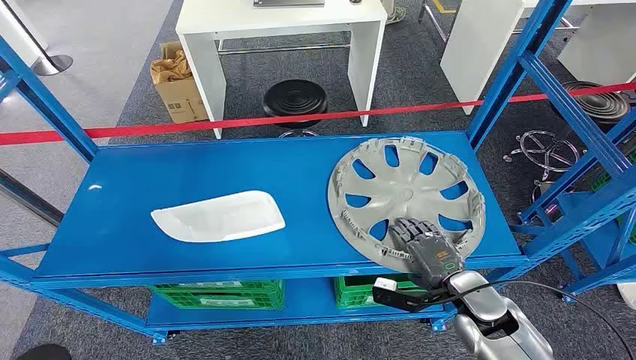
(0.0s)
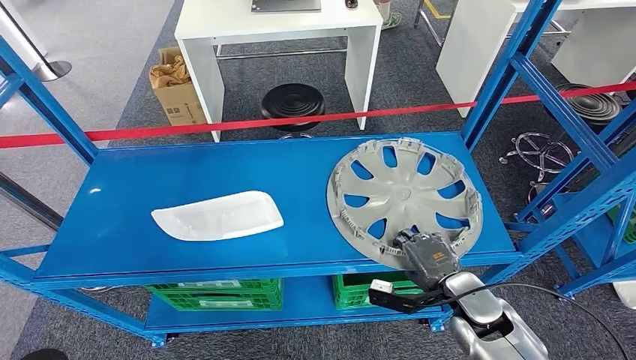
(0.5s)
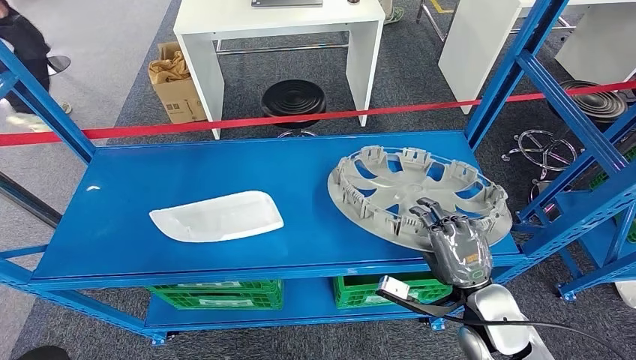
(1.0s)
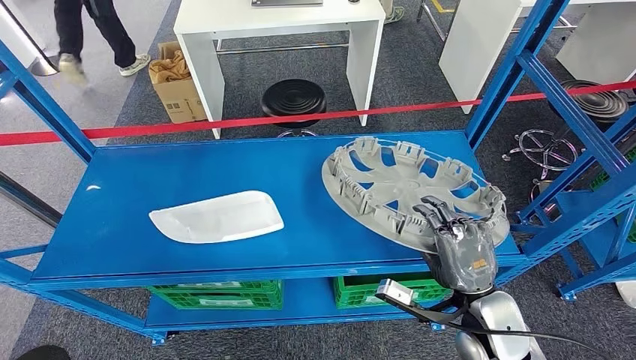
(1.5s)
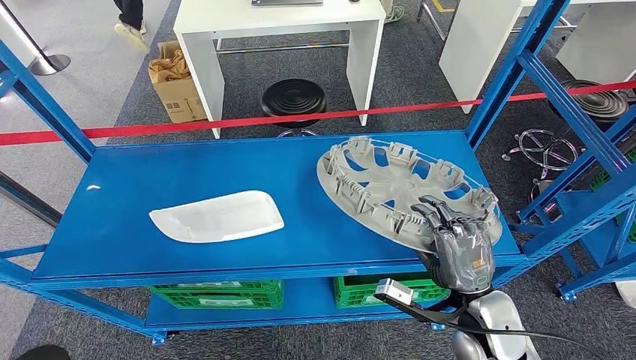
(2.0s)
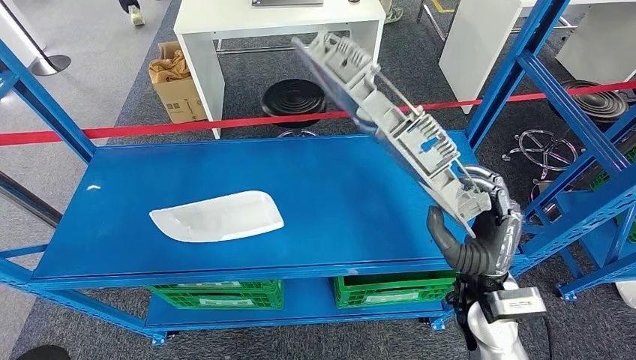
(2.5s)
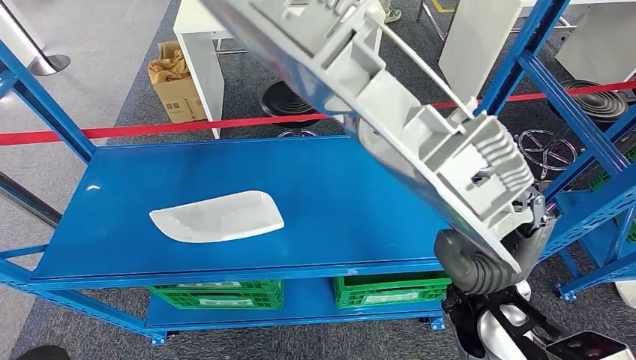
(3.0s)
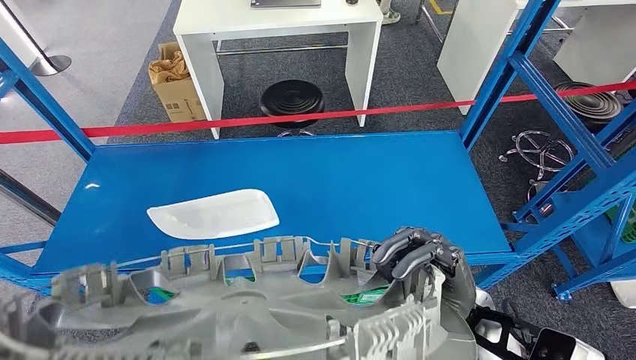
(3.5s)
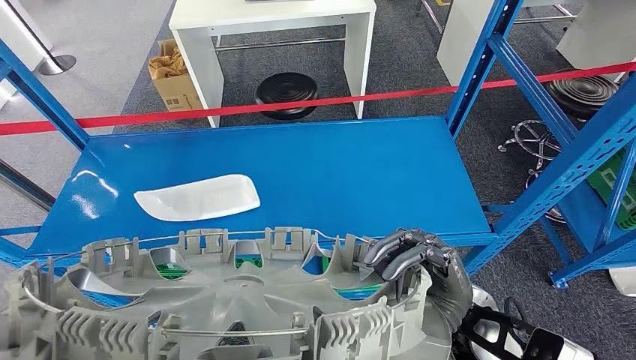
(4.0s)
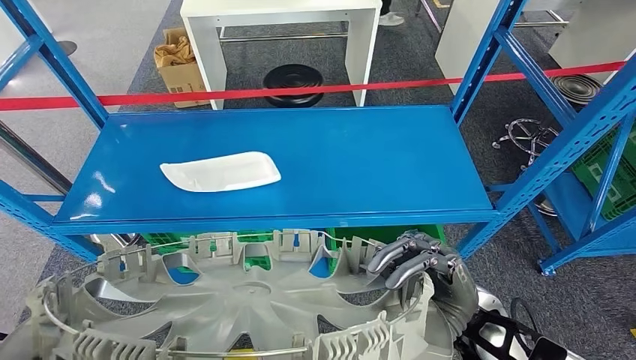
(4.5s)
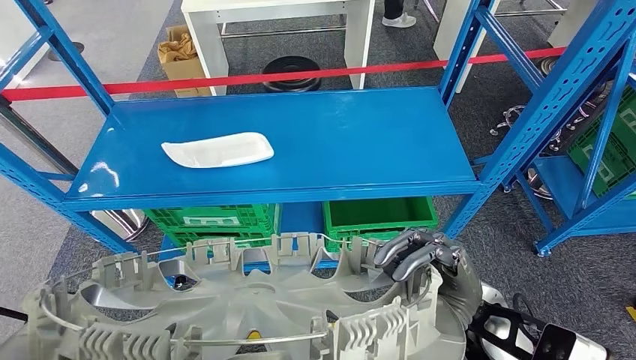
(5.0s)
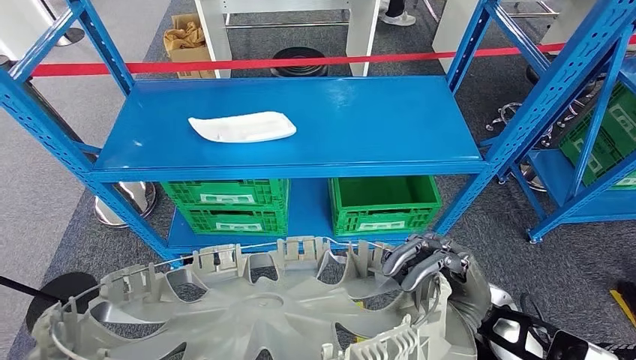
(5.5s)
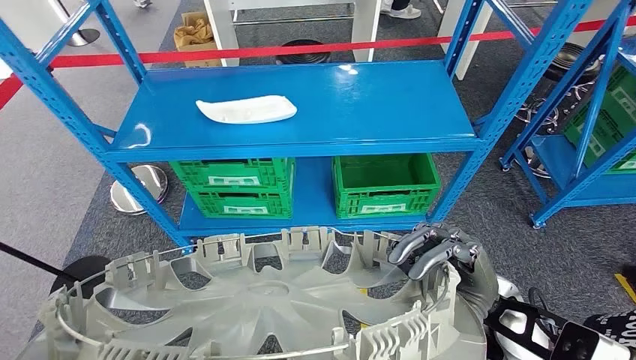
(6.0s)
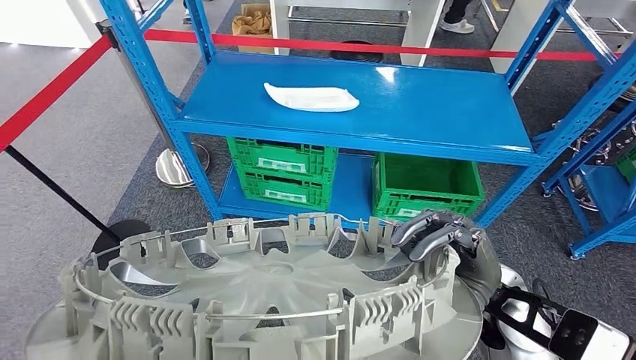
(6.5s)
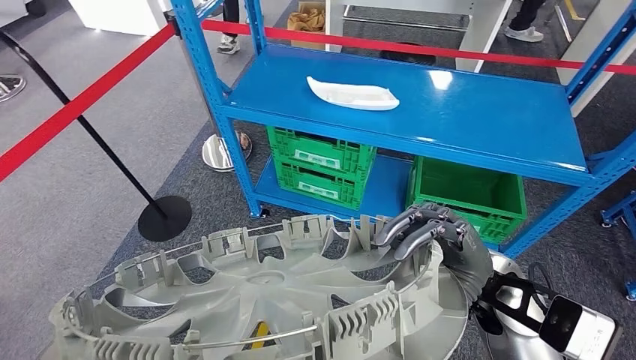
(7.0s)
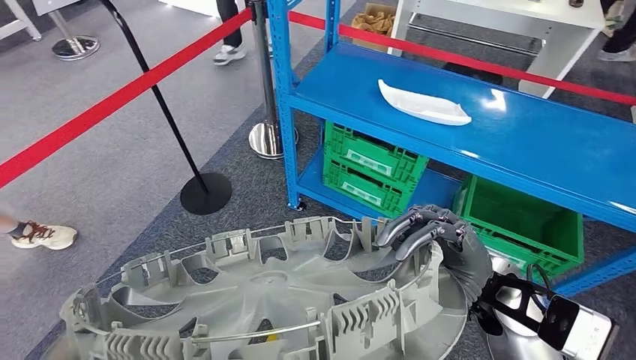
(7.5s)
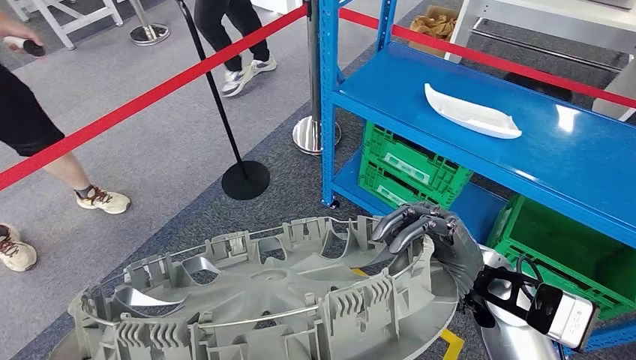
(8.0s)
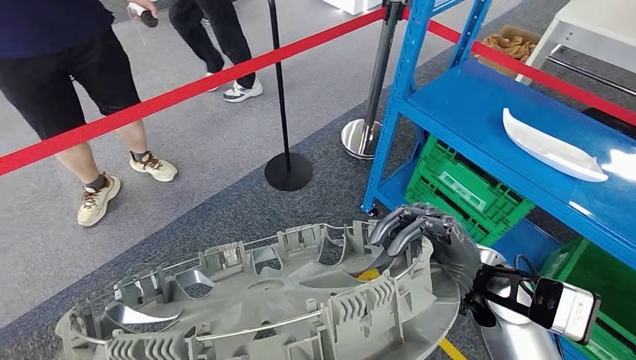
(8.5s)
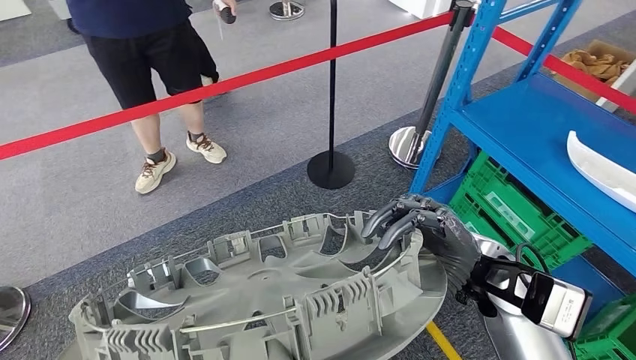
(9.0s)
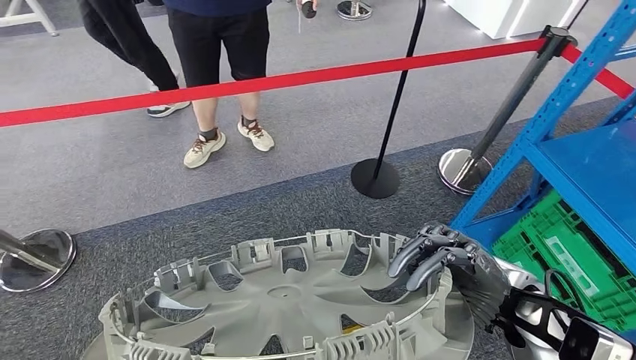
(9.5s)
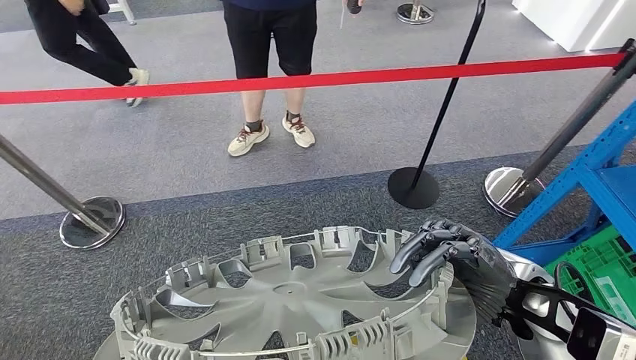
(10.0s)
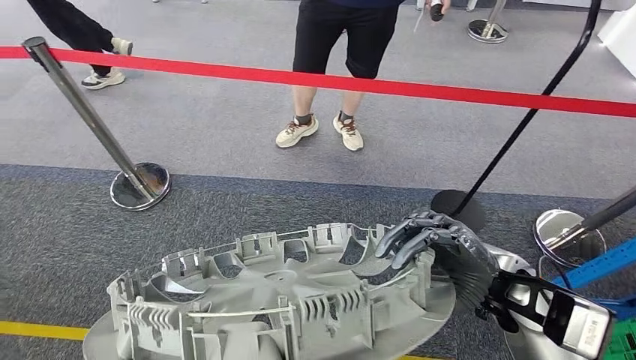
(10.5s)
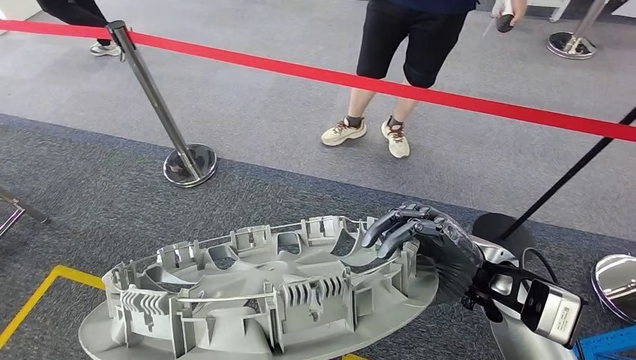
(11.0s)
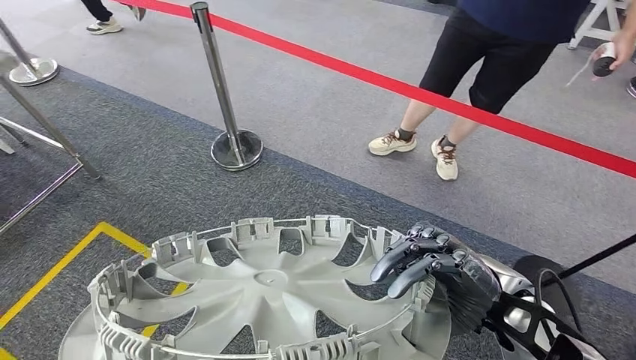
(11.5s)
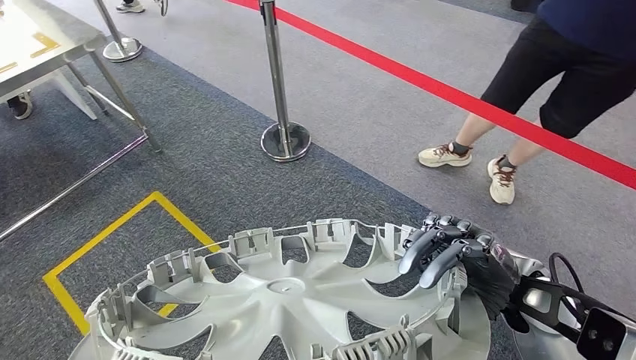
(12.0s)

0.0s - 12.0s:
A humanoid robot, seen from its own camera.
Step, 0.0s - 2.5s: Pick up the small component from the shelf.

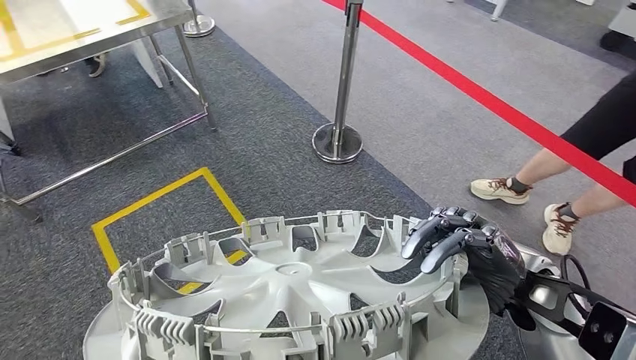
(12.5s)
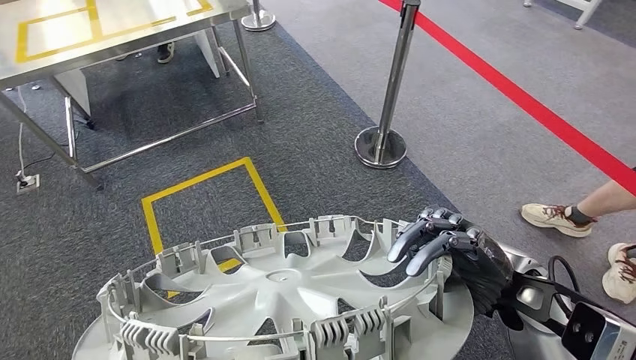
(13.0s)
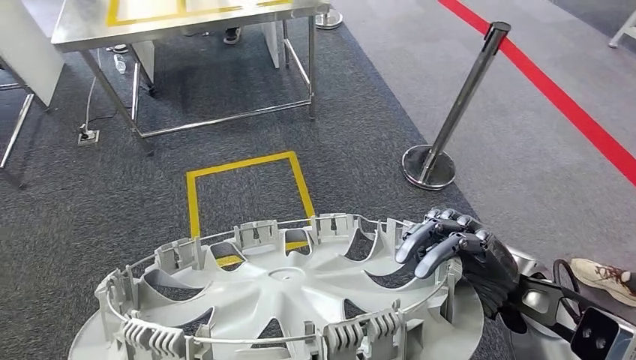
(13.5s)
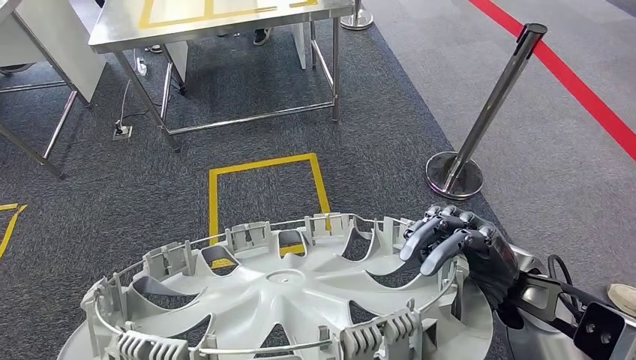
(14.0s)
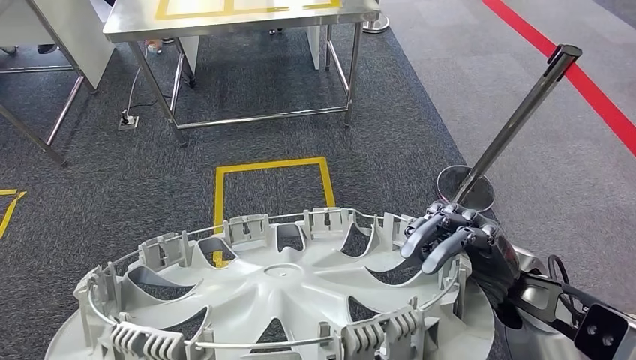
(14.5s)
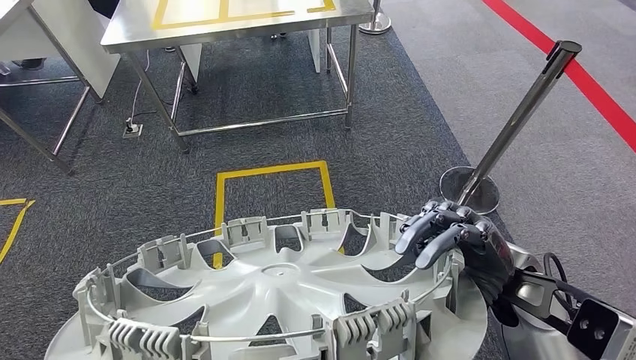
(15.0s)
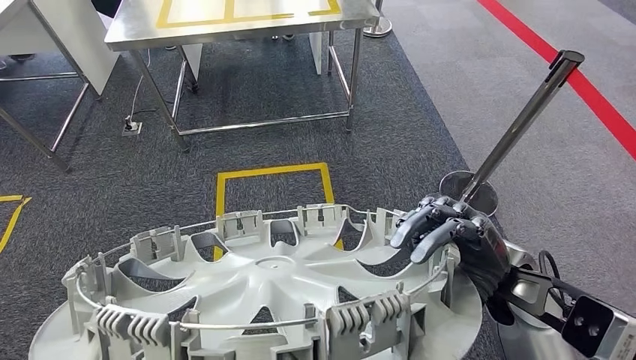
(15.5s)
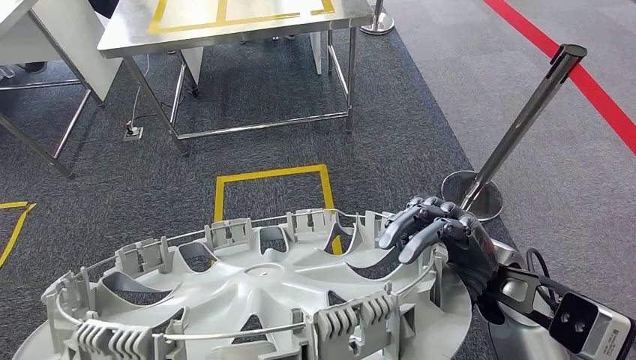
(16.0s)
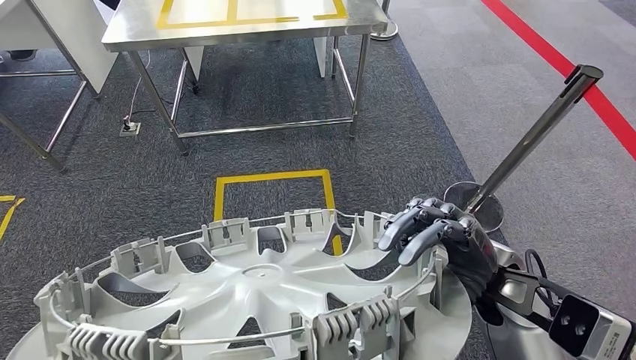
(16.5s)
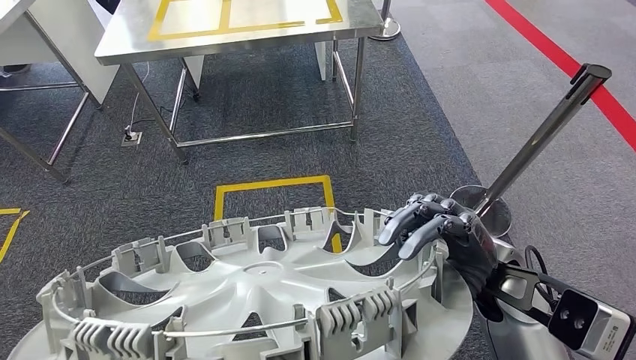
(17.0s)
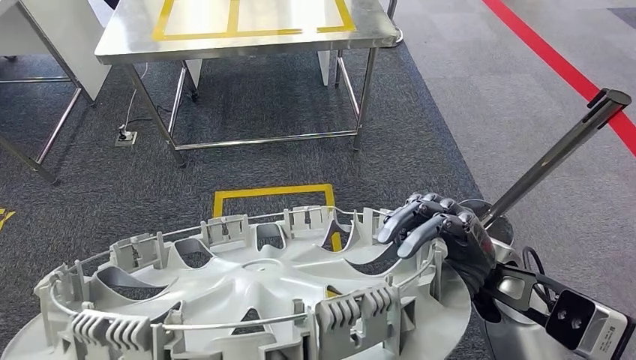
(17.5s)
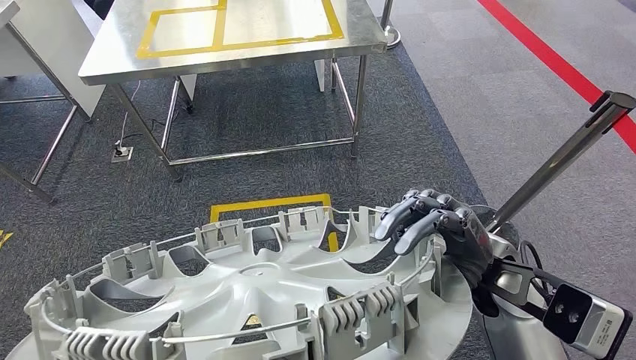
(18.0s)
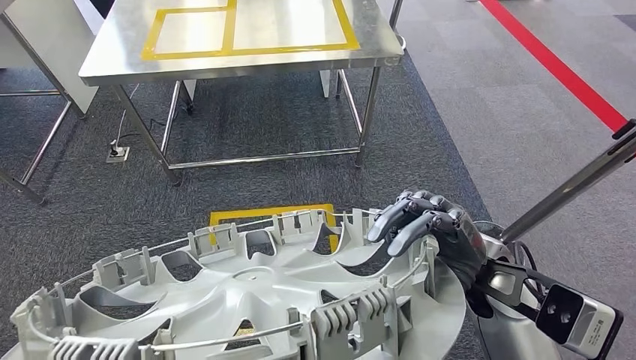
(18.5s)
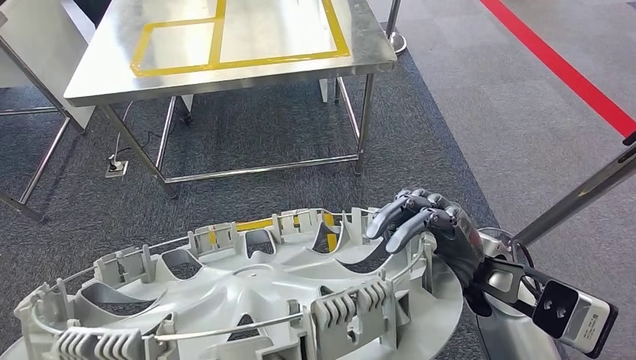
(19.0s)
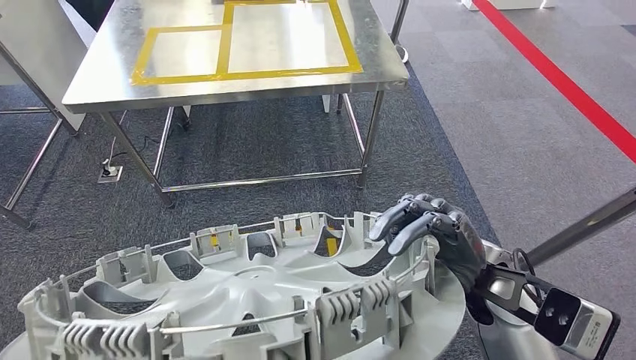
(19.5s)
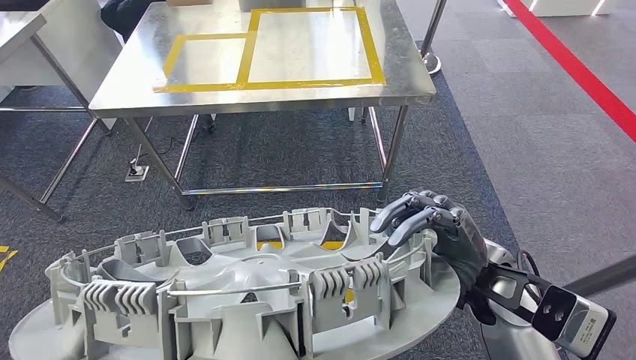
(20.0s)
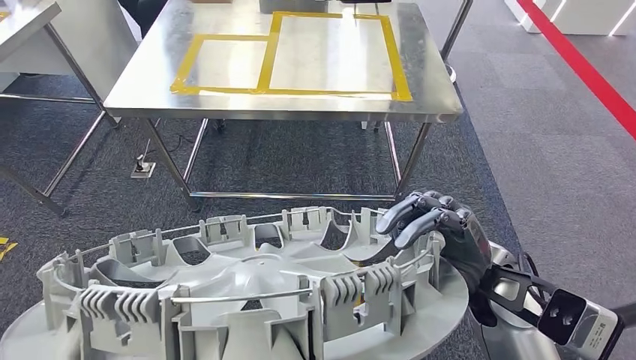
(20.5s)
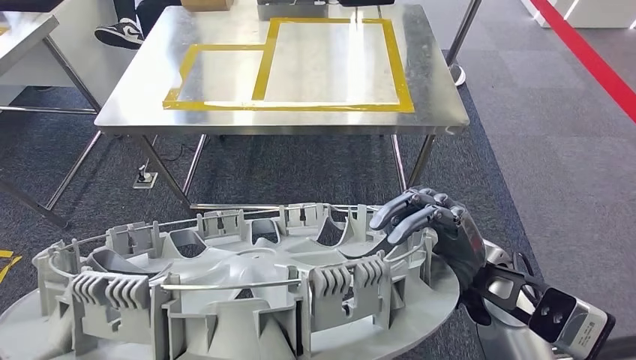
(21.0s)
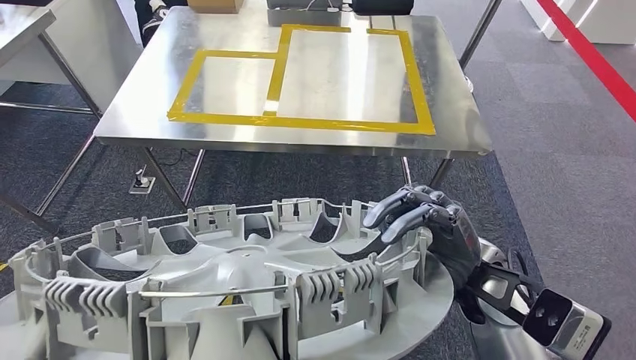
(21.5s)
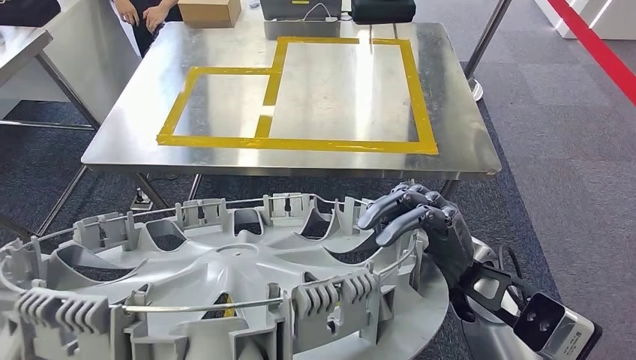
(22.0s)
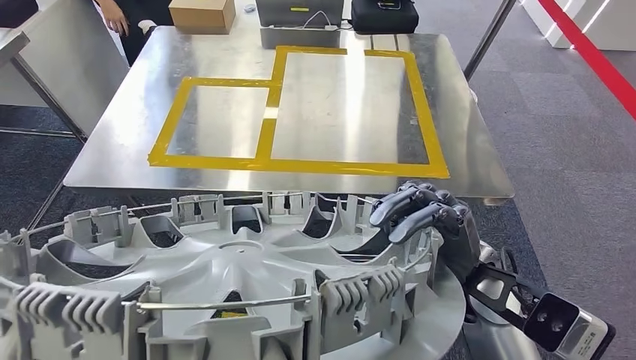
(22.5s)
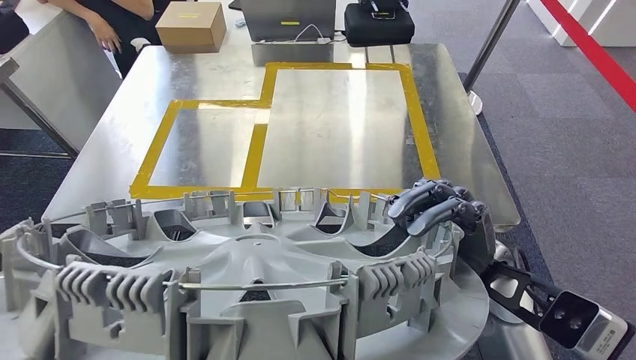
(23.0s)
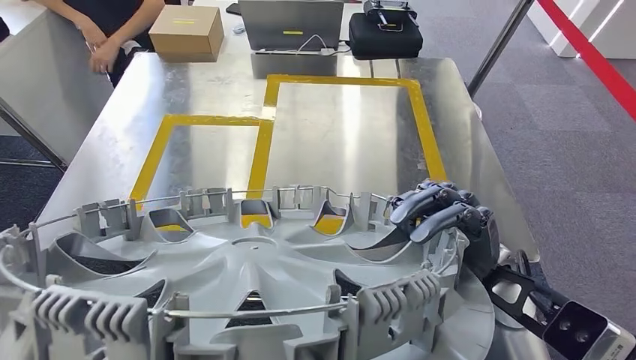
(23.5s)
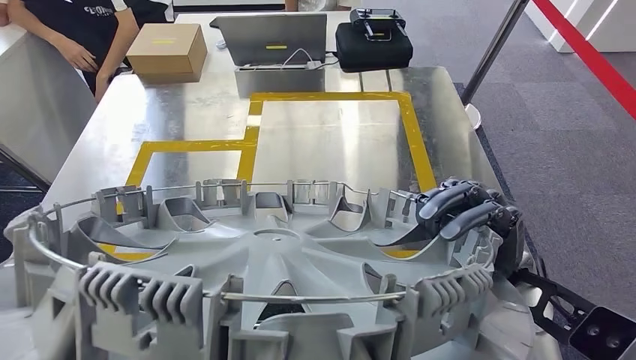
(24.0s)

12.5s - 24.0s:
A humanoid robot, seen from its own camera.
Step, 12.5s - 23.5s: Move the small component to the workbench.
